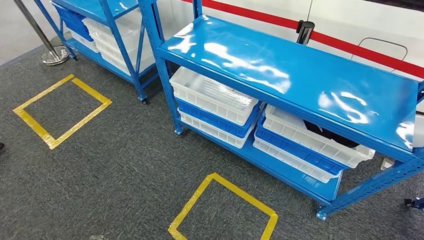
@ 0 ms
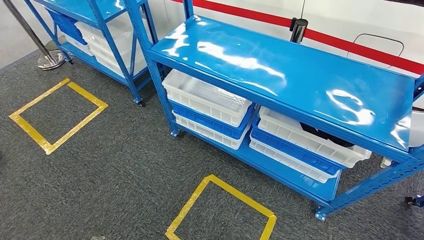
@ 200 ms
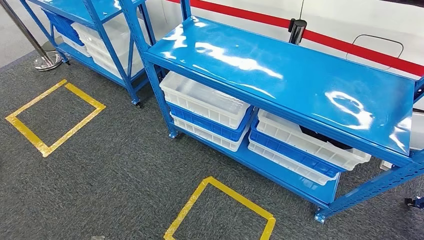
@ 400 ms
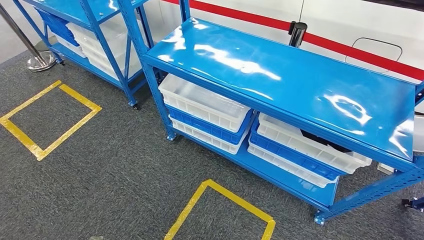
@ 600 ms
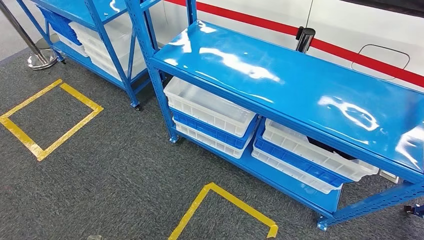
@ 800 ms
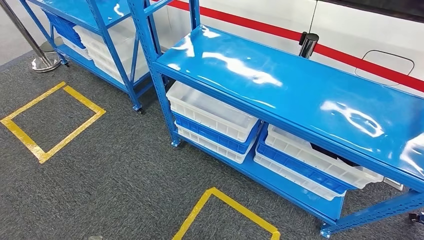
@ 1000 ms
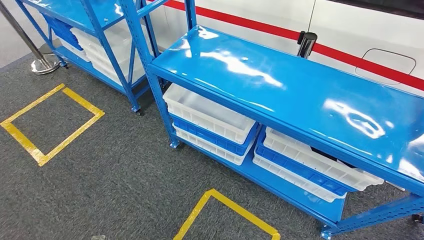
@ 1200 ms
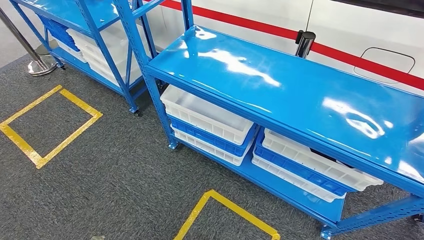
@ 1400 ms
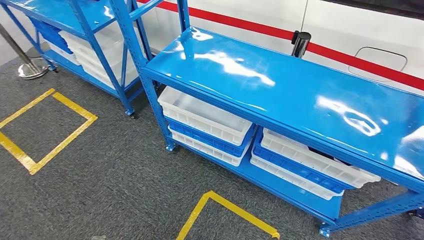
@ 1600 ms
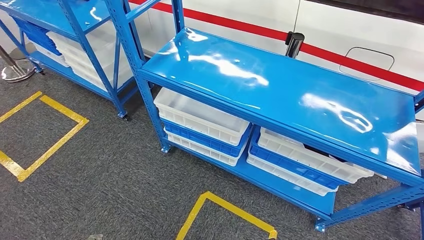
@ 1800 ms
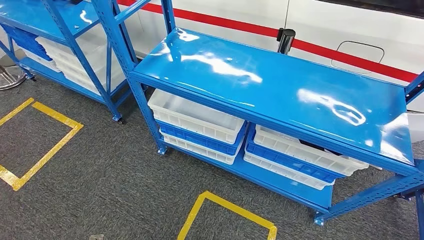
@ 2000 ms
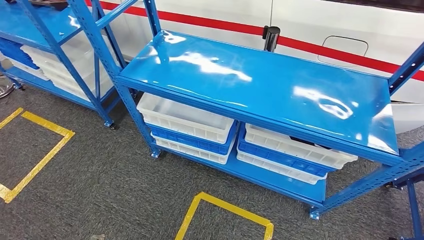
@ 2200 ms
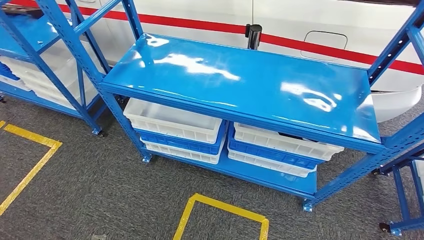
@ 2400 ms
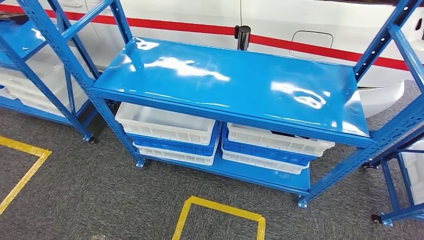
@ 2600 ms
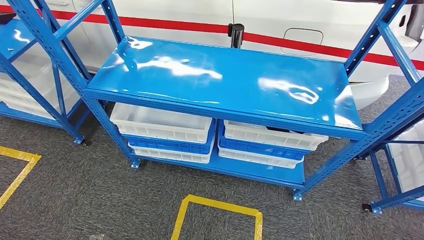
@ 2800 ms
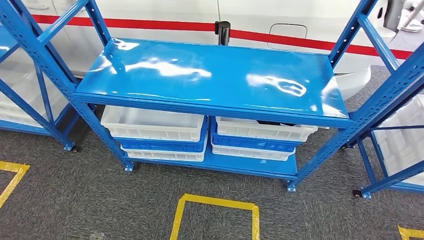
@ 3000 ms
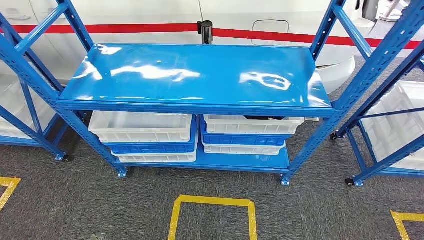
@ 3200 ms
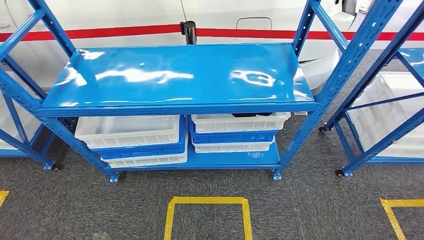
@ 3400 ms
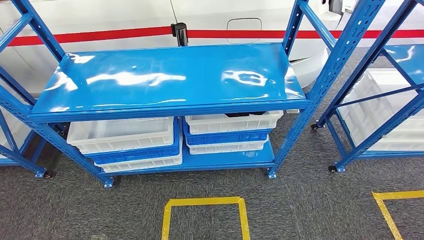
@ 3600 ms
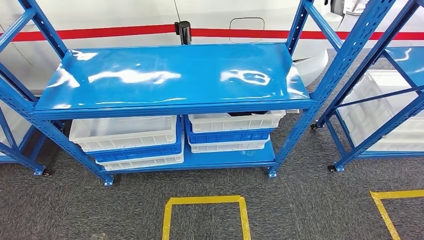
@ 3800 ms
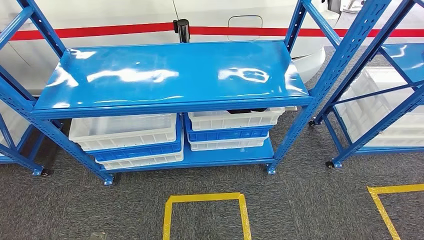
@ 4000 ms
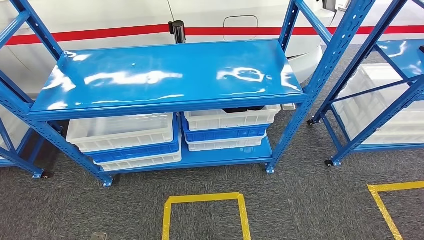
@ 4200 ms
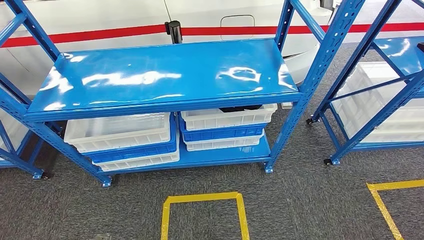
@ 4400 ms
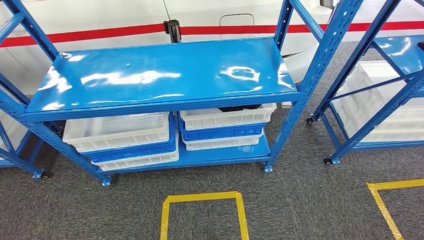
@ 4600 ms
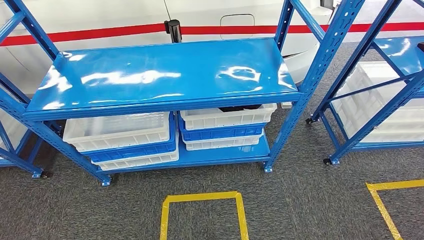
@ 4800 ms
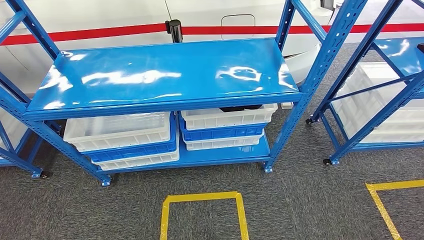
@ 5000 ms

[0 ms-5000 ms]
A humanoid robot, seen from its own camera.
Step, 0 ms to 5000 ms: Move to the initial position of the shelf.

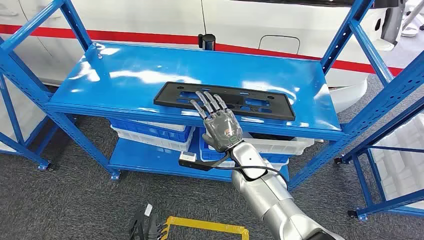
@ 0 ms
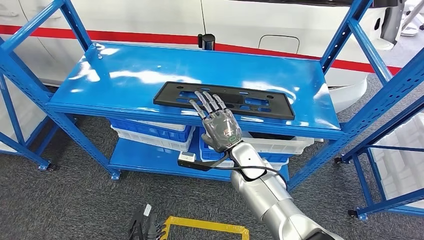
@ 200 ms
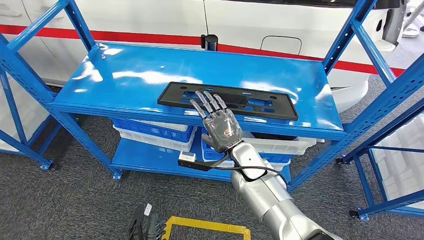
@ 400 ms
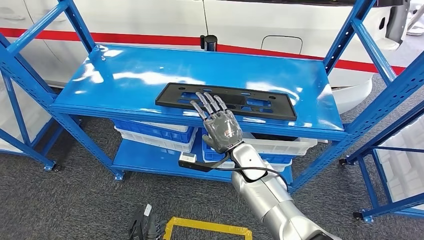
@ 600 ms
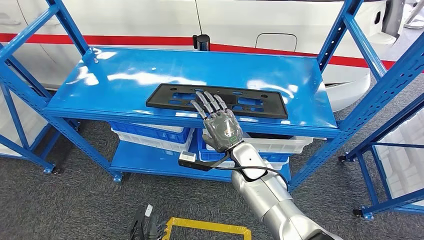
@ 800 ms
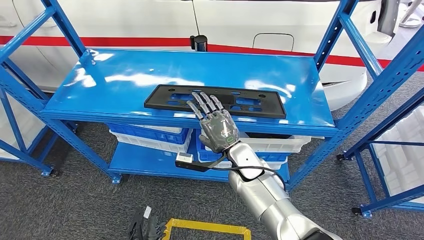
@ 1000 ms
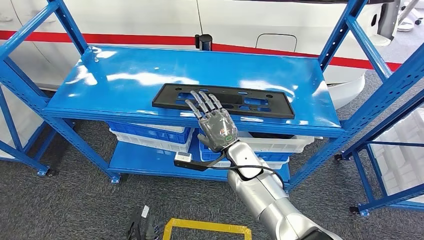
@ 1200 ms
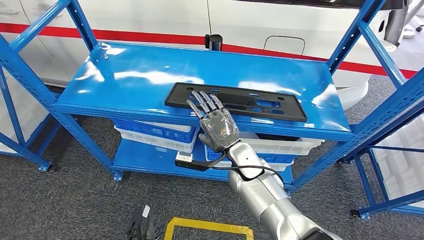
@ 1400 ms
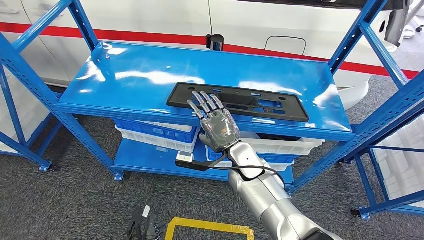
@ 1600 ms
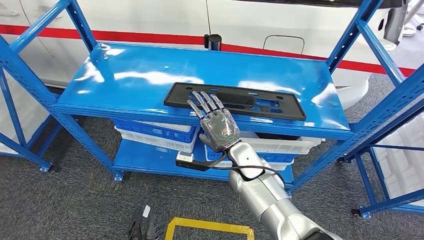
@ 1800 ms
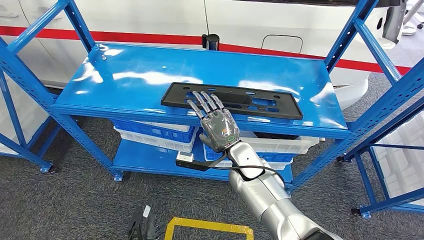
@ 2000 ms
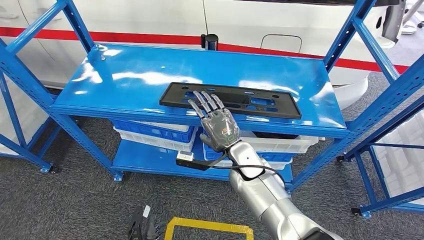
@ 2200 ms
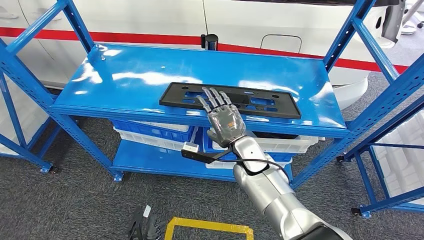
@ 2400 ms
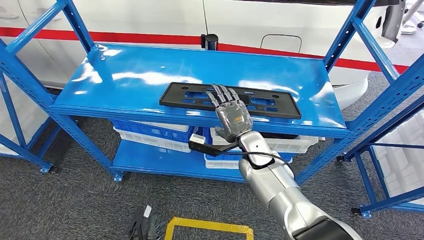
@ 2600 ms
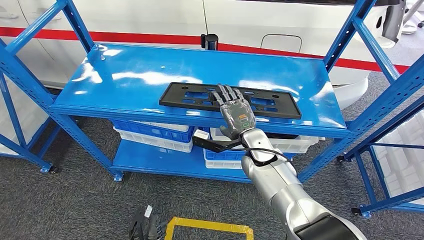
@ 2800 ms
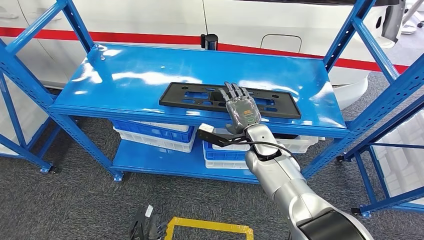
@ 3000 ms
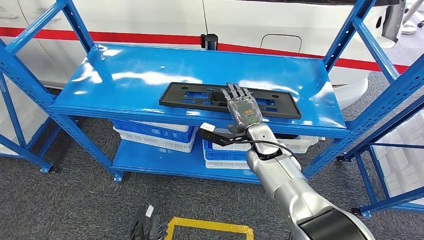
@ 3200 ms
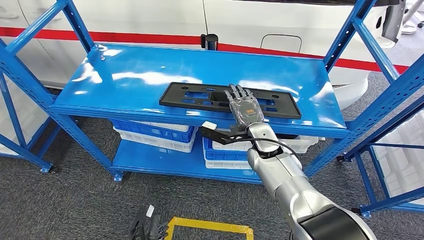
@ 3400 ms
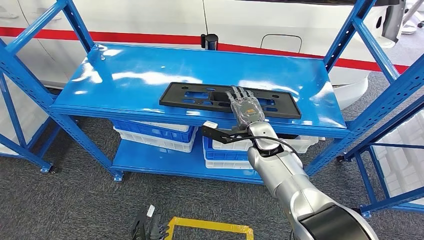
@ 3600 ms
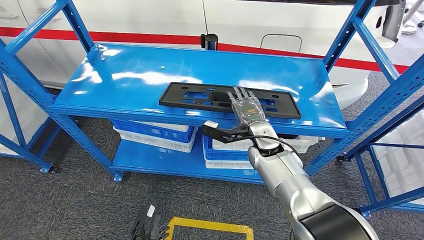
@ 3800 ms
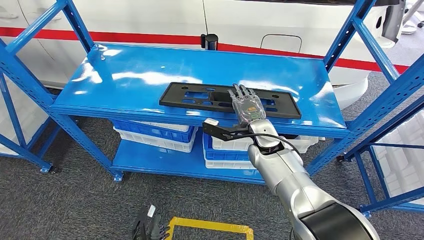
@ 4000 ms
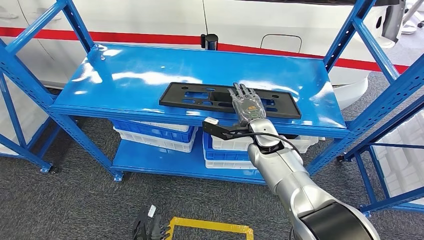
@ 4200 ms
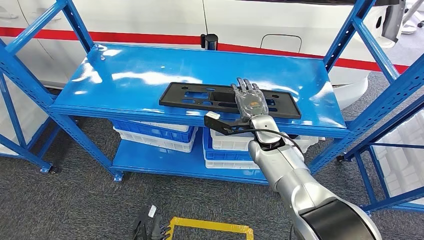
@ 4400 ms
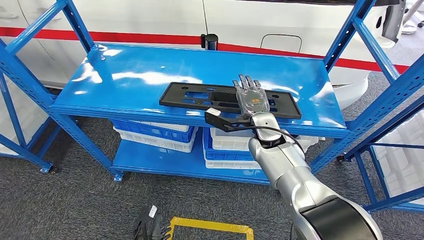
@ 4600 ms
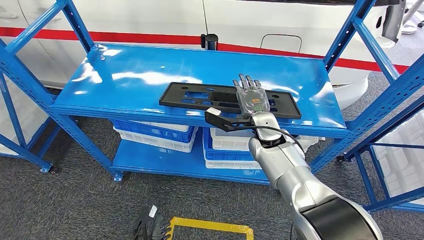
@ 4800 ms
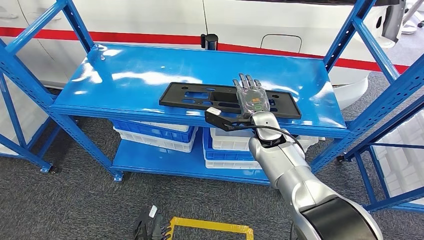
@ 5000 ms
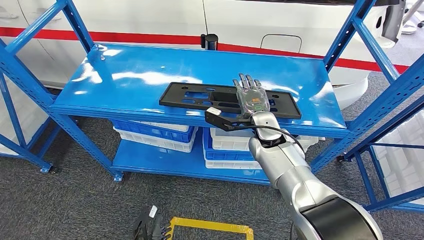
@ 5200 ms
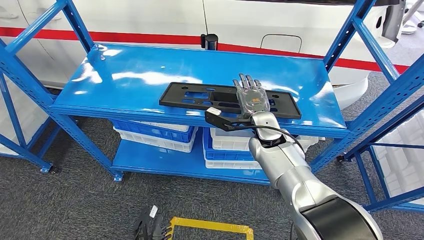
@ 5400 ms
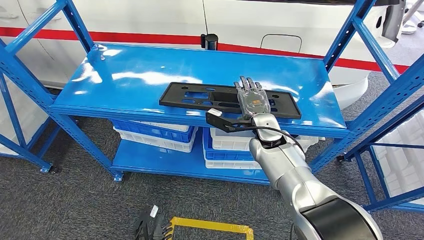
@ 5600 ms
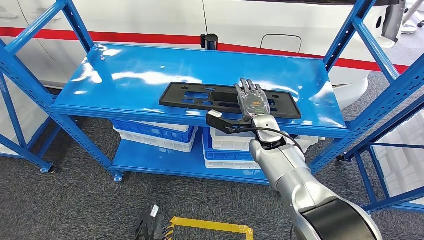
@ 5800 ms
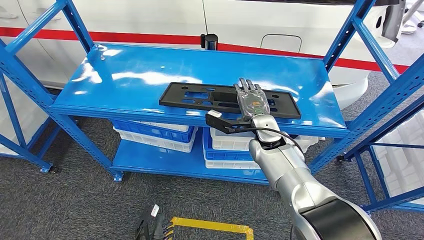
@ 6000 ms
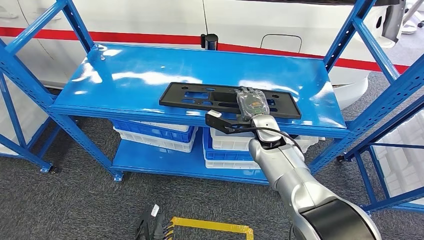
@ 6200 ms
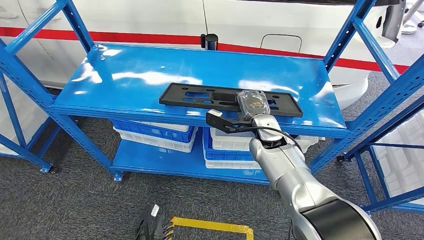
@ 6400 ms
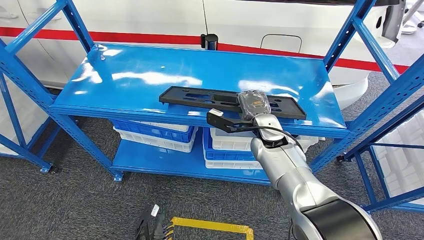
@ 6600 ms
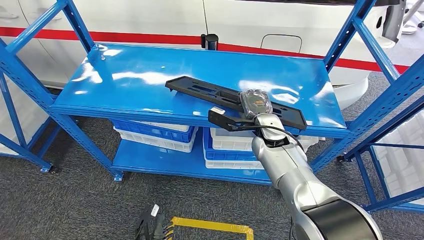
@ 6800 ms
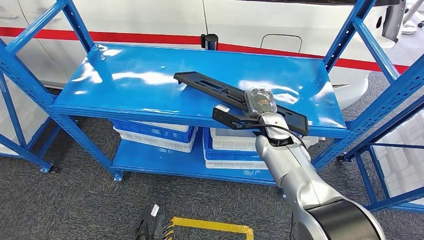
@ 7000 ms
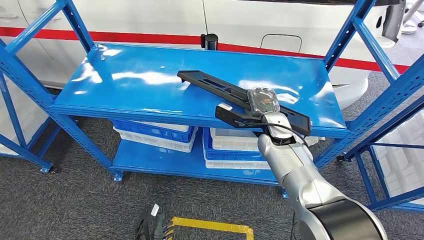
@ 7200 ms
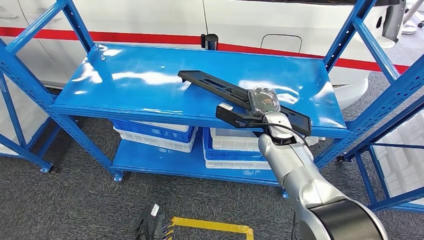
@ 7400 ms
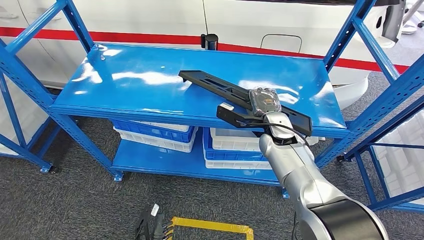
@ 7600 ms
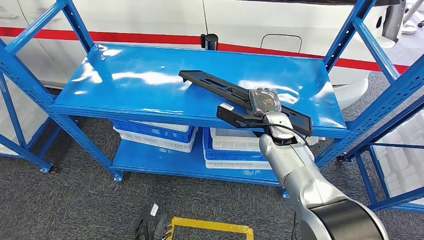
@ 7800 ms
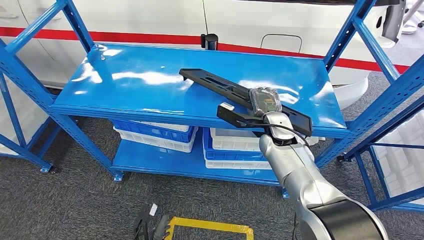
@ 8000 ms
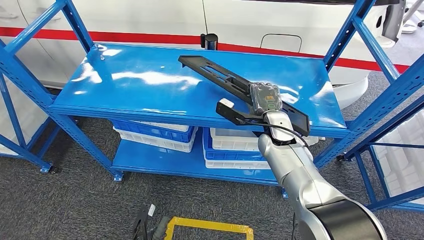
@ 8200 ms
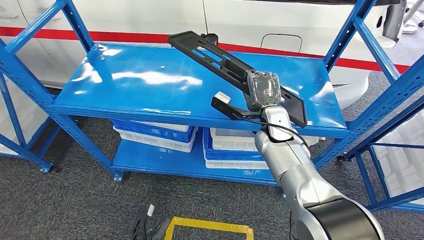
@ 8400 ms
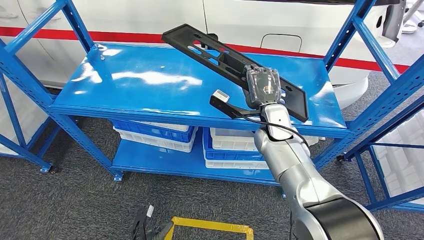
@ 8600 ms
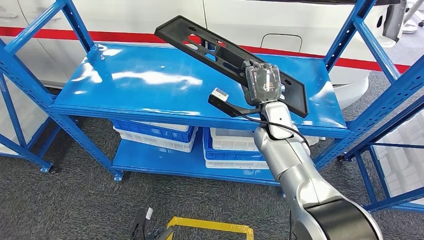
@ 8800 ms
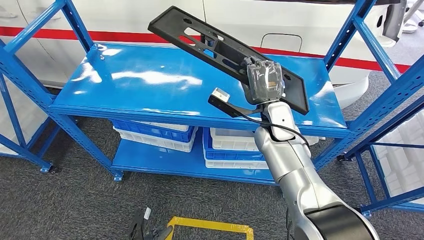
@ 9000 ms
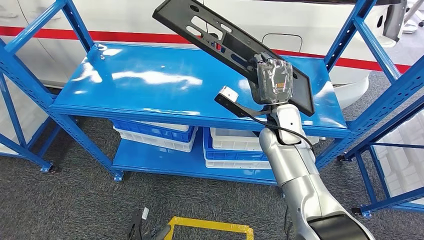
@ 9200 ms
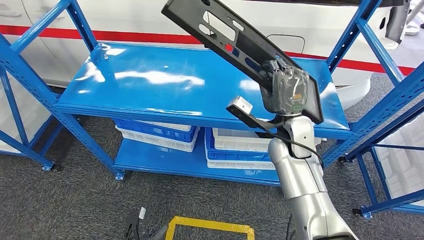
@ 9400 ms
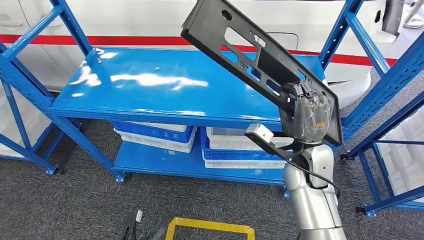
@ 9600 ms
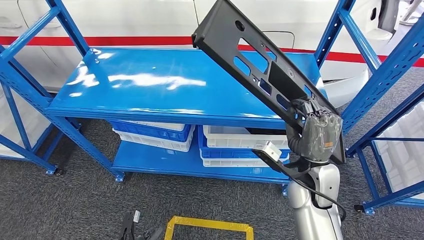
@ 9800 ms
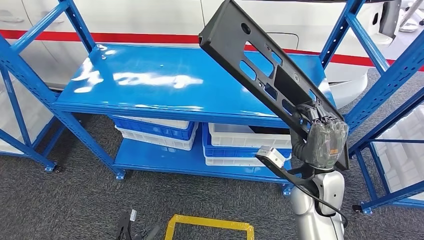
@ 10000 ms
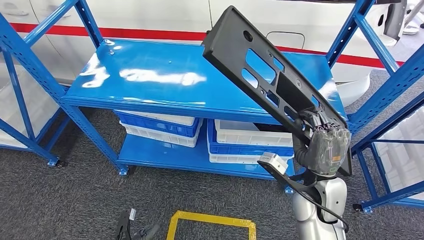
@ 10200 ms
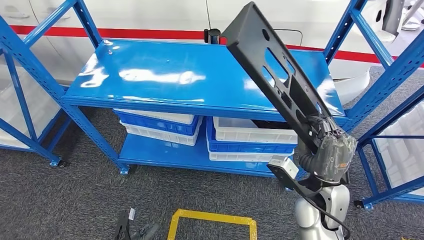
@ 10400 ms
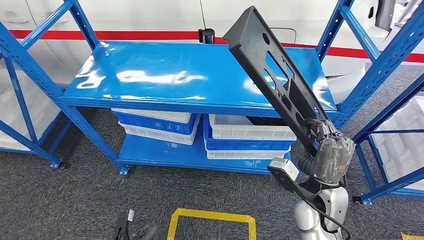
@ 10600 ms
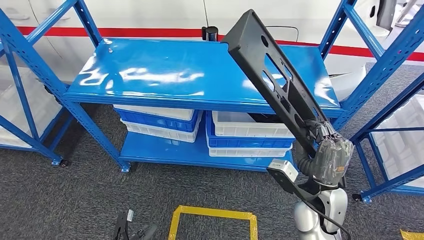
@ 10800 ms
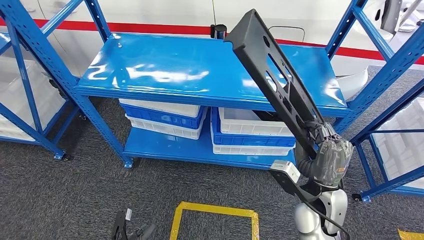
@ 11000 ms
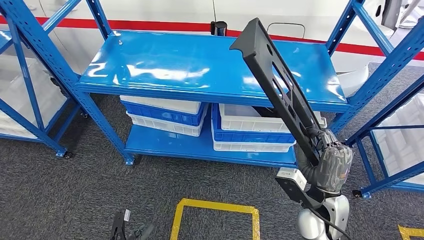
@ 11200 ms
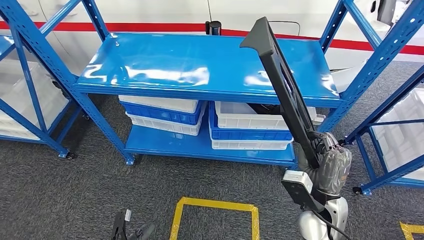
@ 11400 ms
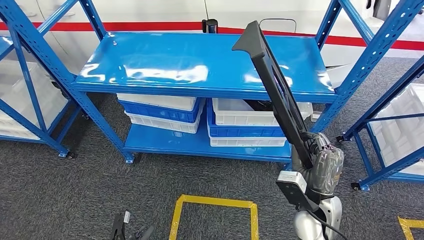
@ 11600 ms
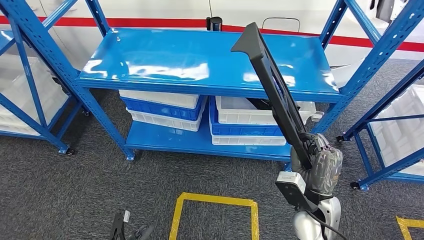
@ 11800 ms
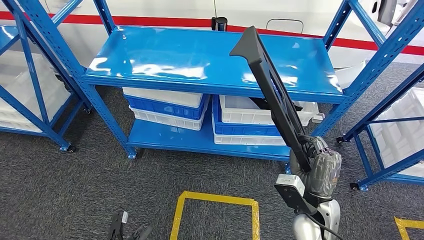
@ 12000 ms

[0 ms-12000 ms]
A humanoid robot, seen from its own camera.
Step, 0 ms to 11200 ms: Pick up the large material from the shelf.
3000 ms to 4400 ms: The hands stay close to where they were, moving slightly.
4400 ms to 6000 ms: Both hands stay put.
6000 ms to 7600 ms: The hands make only small movements.
7600 ms to 9000 ms: The right hand moves some 5 cm.
